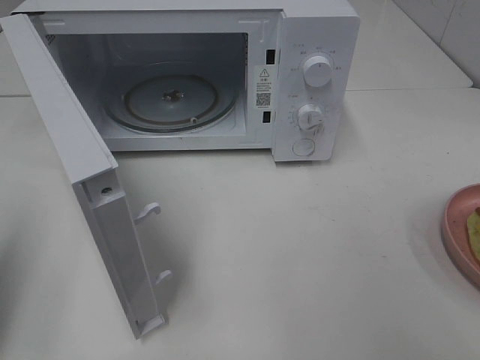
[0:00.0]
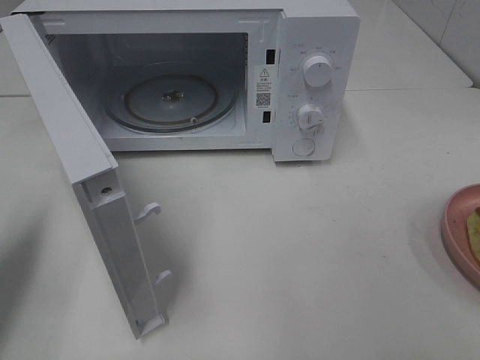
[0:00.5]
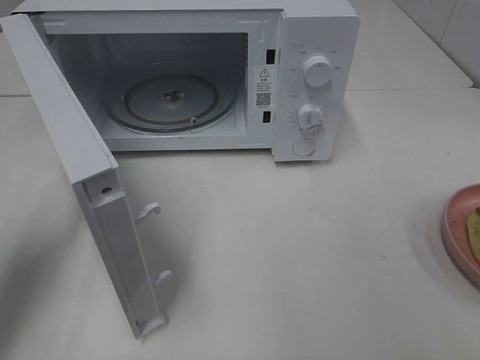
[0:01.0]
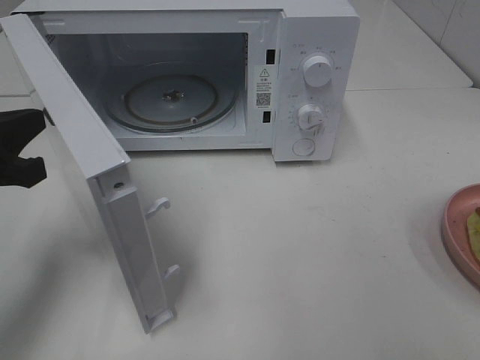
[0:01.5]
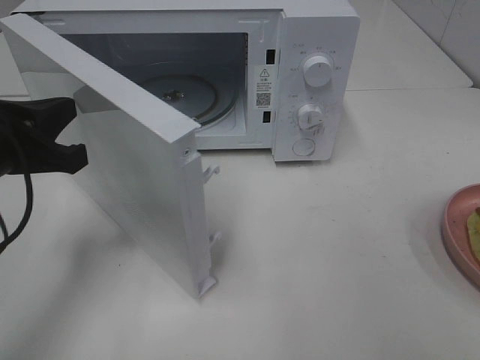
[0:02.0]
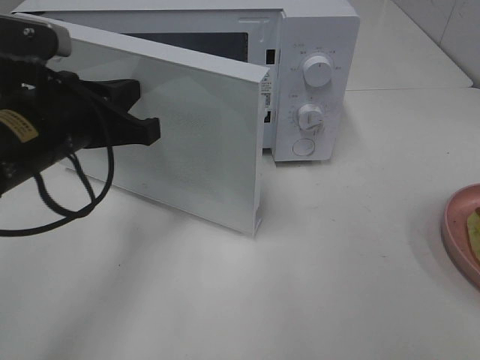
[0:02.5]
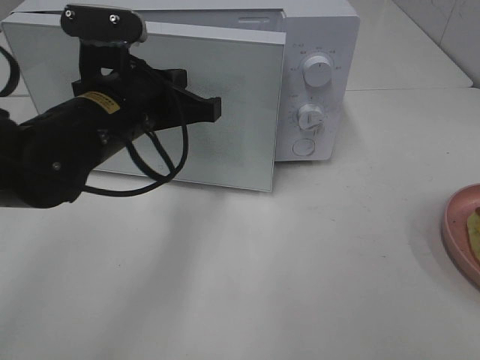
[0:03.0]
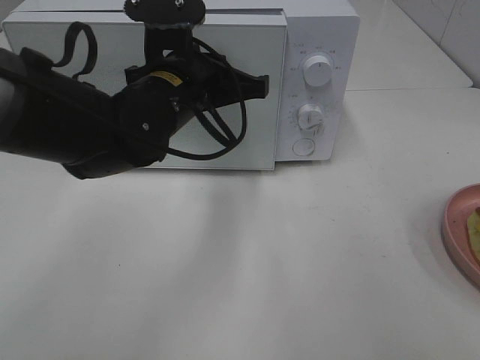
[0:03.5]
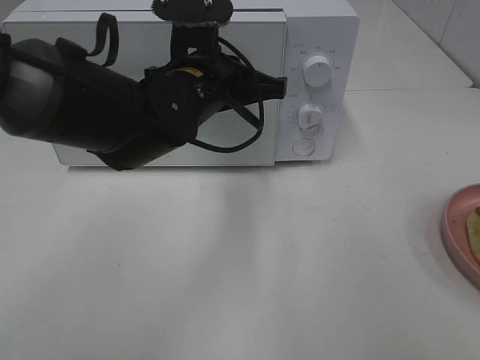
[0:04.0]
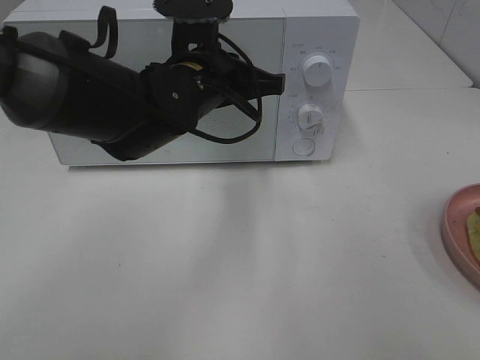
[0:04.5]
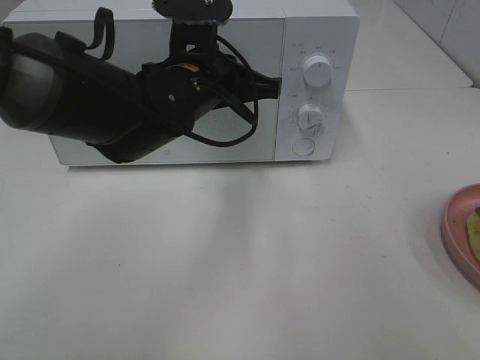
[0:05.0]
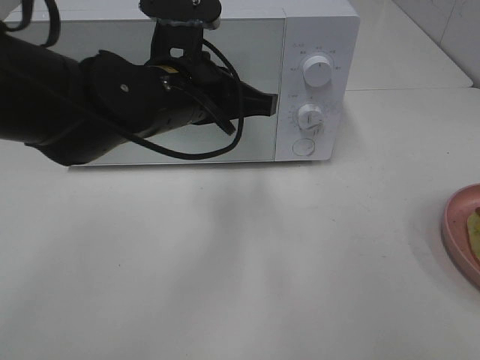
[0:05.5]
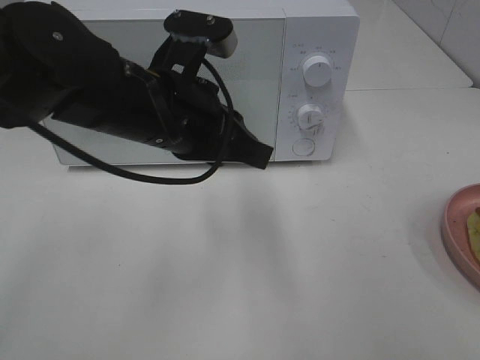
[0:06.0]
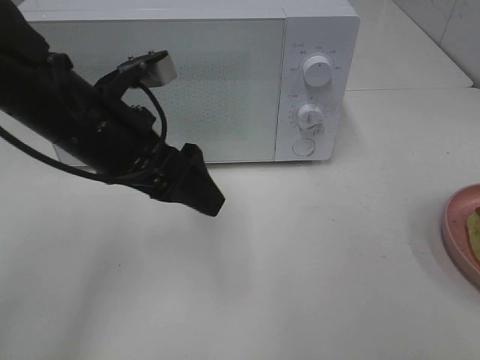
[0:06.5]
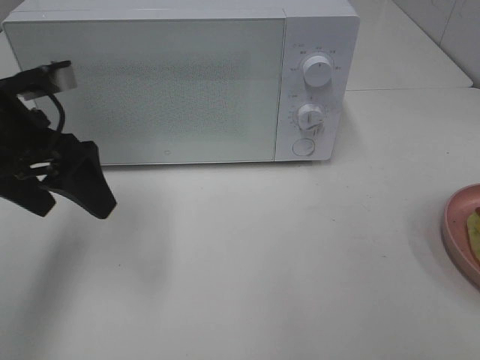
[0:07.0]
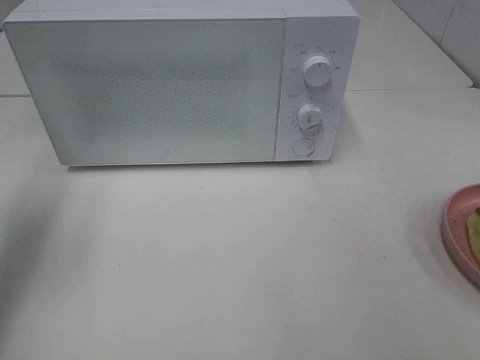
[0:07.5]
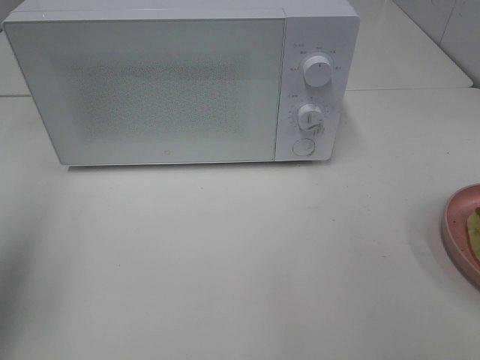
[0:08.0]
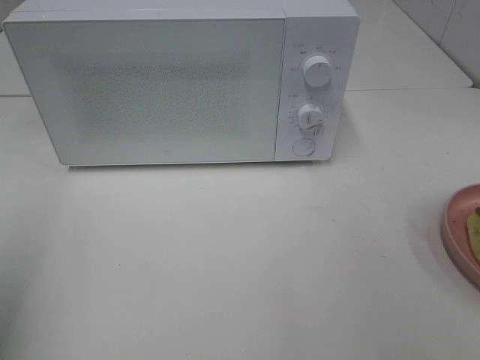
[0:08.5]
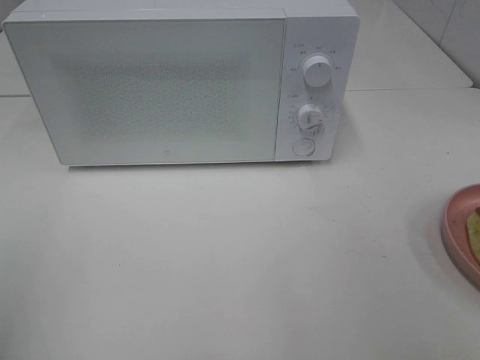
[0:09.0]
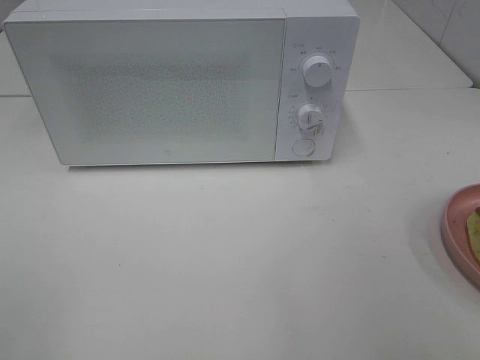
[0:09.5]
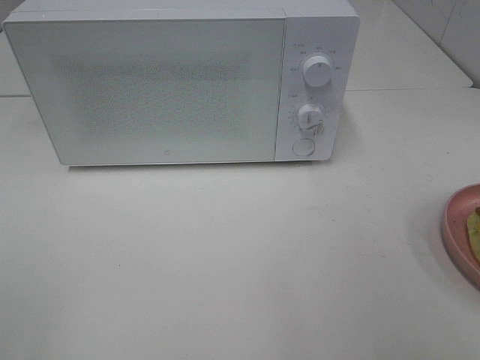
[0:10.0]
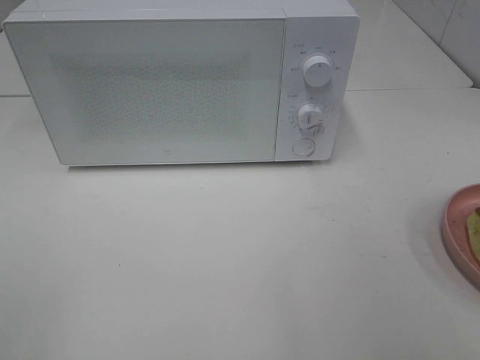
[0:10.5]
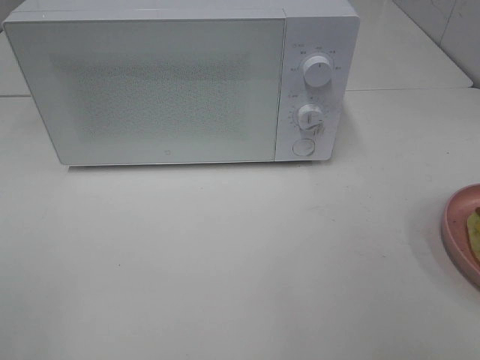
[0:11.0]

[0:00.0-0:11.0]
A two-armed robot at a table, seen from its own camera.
Task of the whole recording: Heat Sandwich.
Step, 0:00.0 to 0:05.5: Left hand: close the microwave door.
0:00.0 to 0:02.0: The left gripper shifts about 15 cm to the right, forward and downward.
0:02.0 to 0:03.5: The left gripper is displaced to the right and forward by roughly 20 cm.
0:03.5 to 0:05.5: The grippers move only a little.
0:05.5 to 0:07.5: The left gripper goes about 25 cm to the left, and opens.
0:07.5 to 0:09.0: The left gripper moves backward, about 20 cm.
